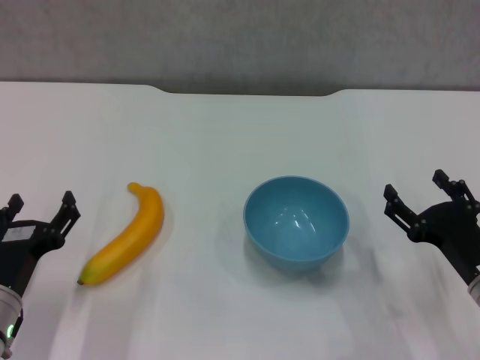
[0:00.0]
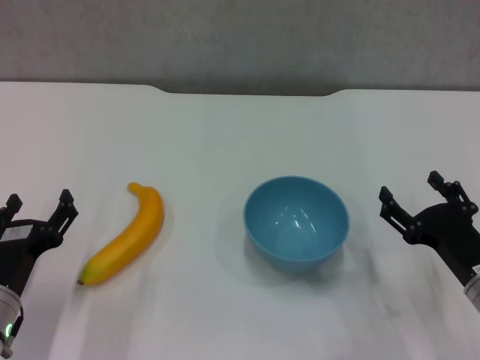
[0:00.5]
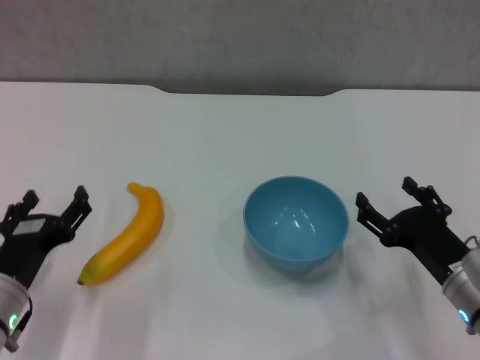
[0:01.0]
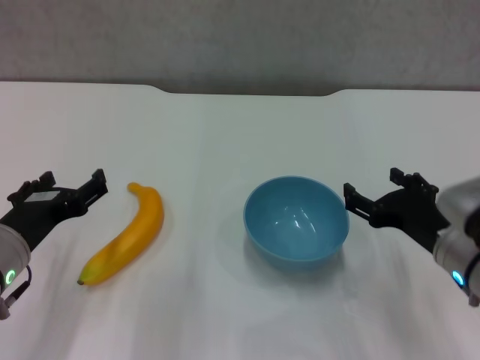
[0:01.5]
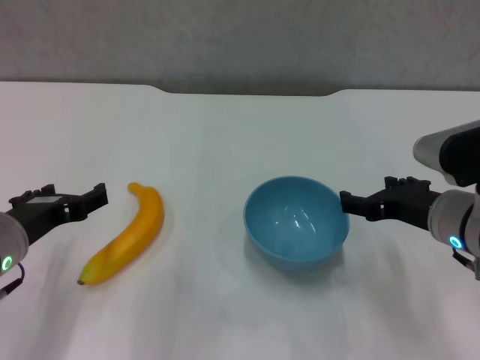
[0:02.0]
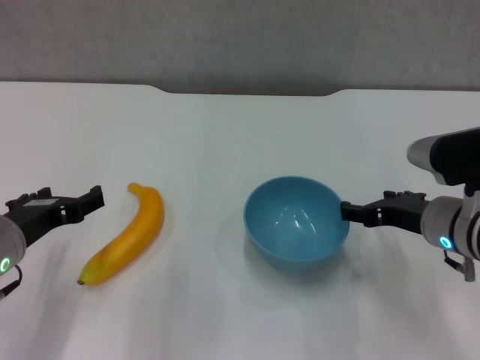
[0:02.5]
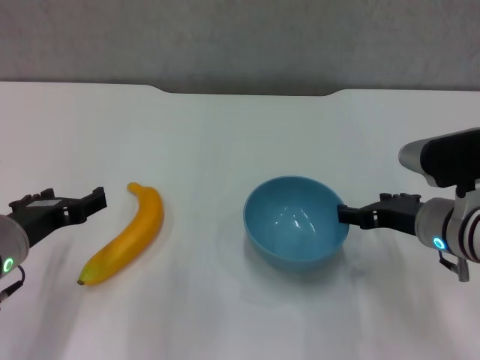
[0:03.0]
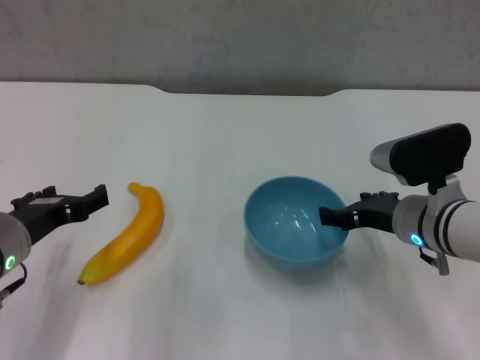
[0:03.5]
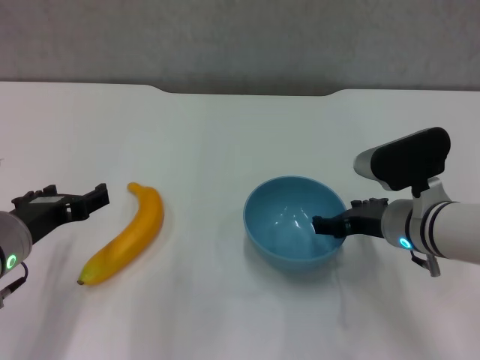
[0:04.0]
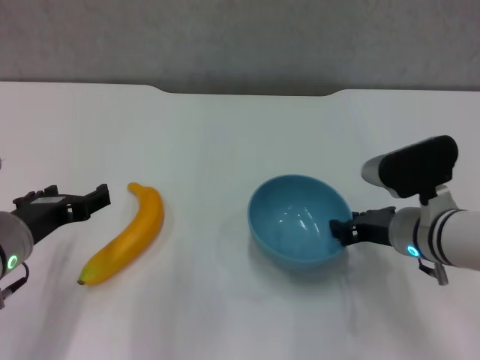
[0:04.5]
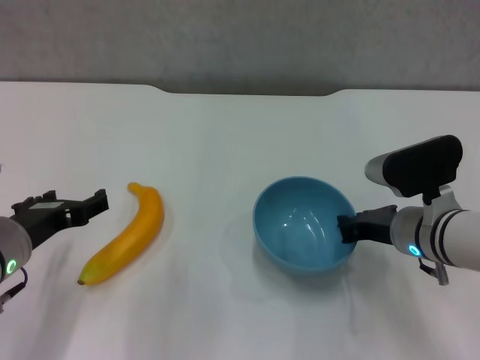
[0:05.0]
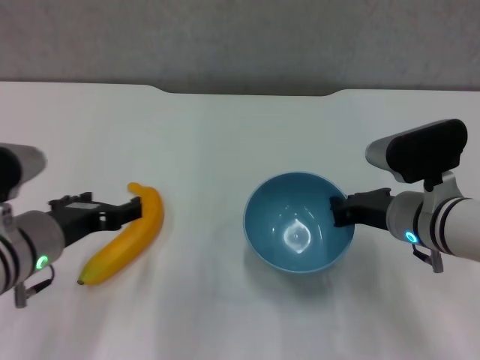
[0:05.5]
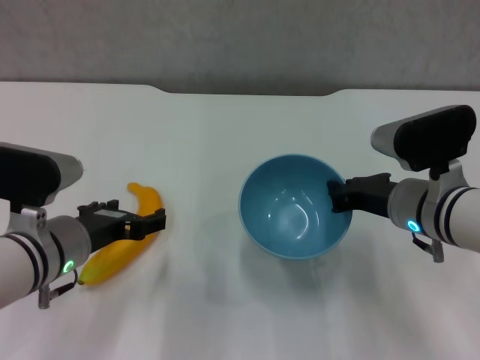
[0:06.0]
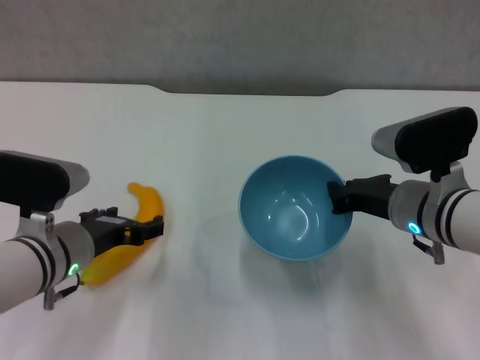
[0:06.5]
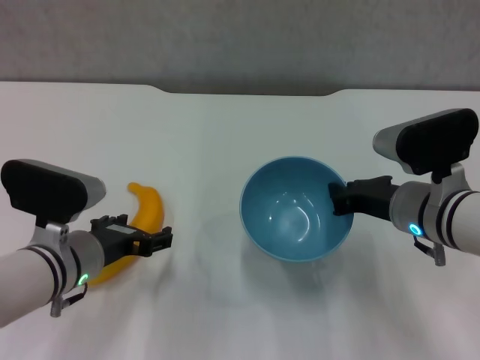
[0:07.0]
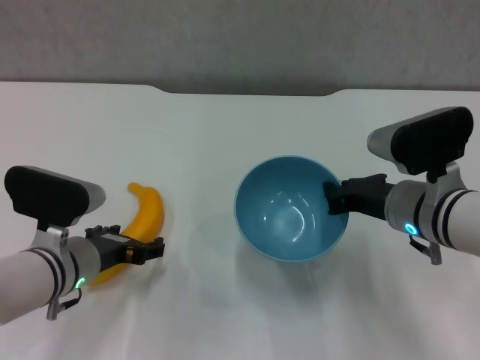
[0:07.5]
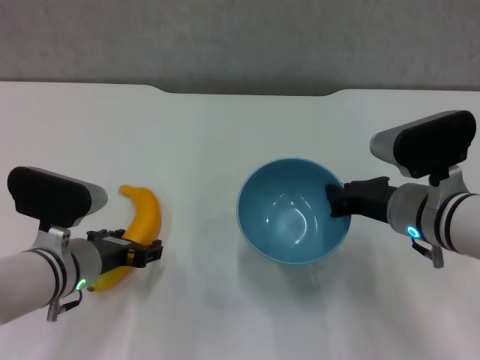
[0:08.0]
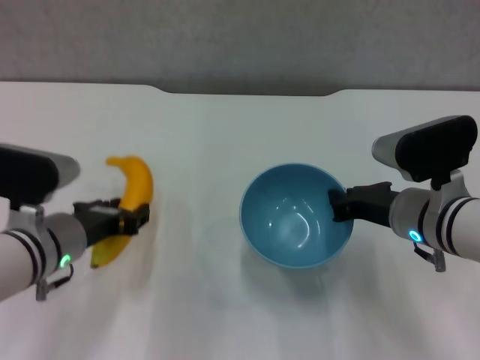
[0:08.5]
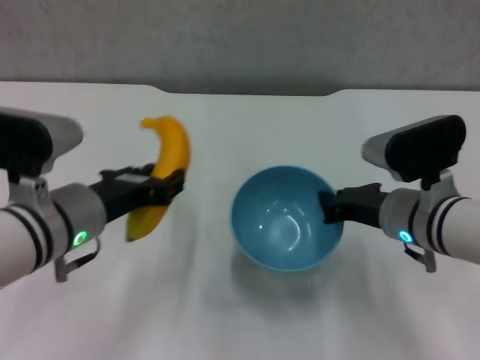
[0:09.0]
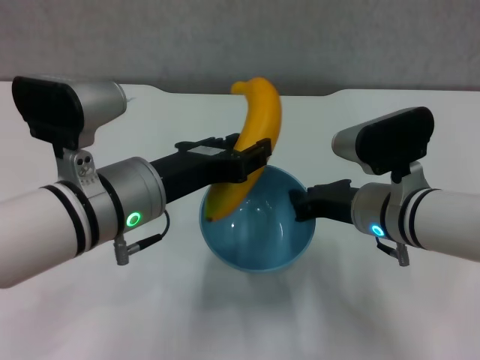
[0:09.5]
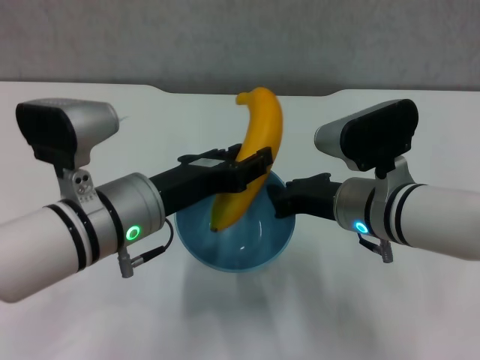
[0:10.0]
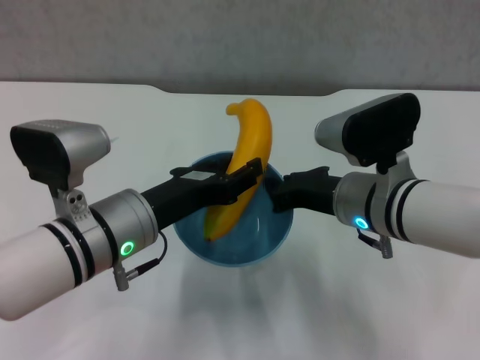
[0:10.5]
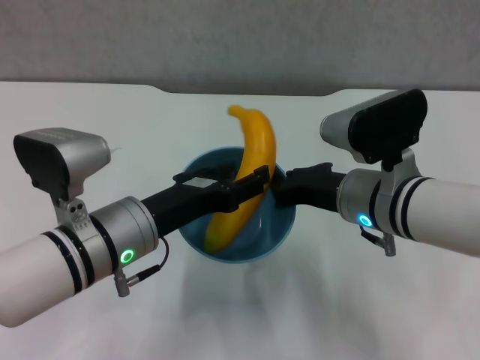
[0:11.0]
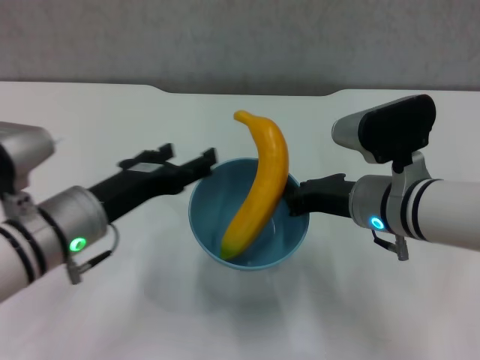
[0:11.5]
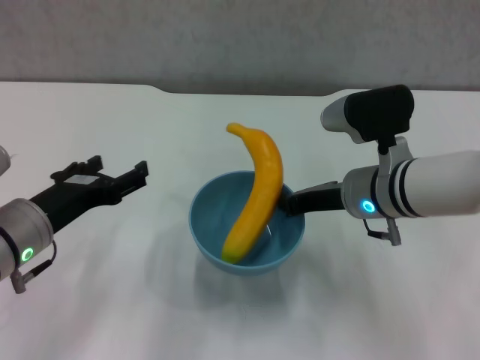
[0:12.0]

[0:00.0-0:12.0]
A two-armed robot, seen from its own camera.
Step, 0:00.0 to 0:05.0: Grasp the blue bowl with right gripper.
Step, 0:05.5 to 0:06.0: Lift the blue bowl with right gripper.
Step, 0:06.5 to 0:08.0: Grasp the banana with left gripper.
Step, 0:08.5 to 0:11.0: Place the banana in the blue bowl with left gripper.
0:00.0 to 0:02.0: The right gripper is displaced upward and forward by roughly 10 cm. Meanwhile the left gripper shifts some 10 cm upward.
0:02.0 to 0:04.0: The right gripper changes place by about 5 cm.
0:04.0 to 0:06.0: The right gripper closes up.
0:06.0 to 0:08.0: The left gripper shifts by roughly 5 cm.
0:08.0 to 0:10.0: The right gripper moves to the left, about 5 cm. The left gripper is displaced upward and to the right by roughly 10 cm, and closes.
0:10.0 to 0:12.0: The left gripper heads to the left, covering approximately 10 cm, and opens its fingers.

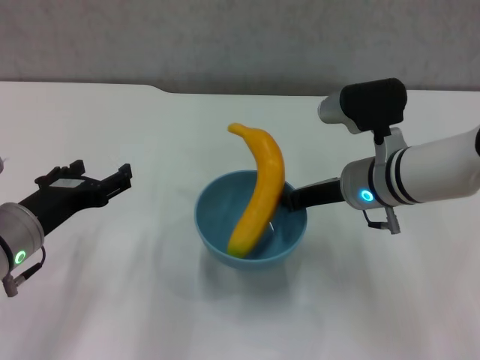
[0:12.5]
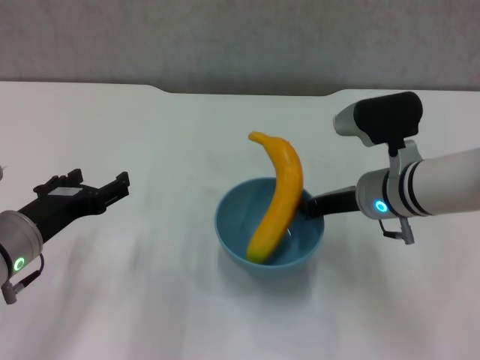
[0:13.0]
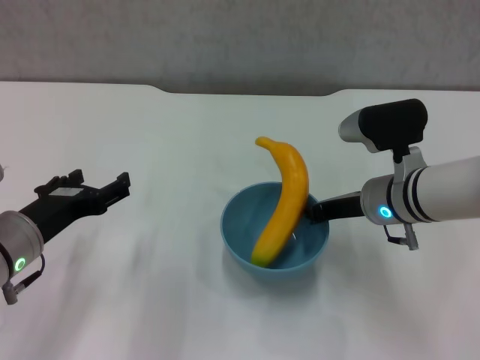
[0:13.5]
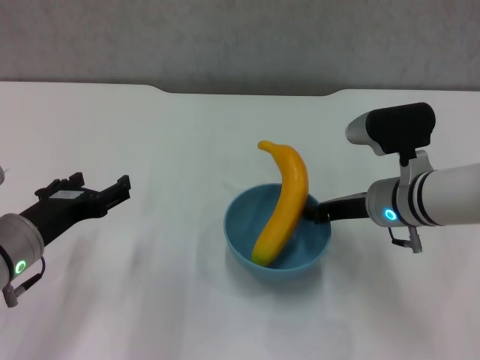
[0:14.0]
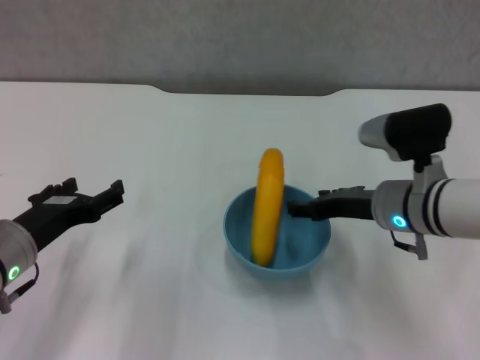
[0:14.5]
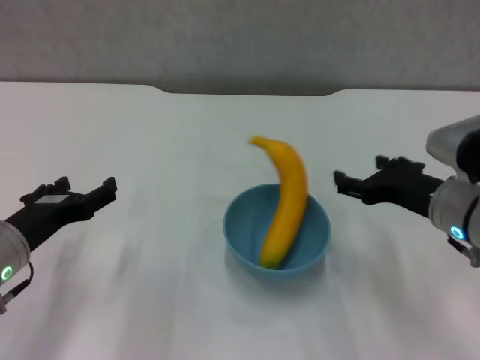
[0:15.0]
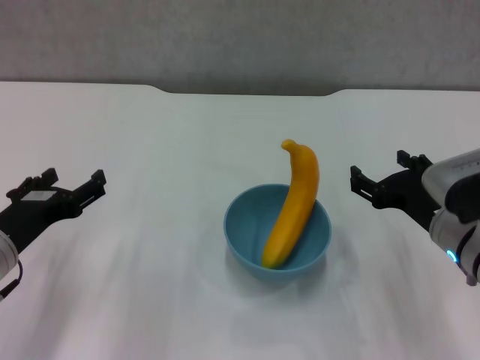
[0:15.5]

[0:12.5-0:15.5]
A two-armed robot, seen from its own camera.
Step, 0:12.5 to 0:14.5: Place the bowl on the table with right gripper.
0:14.0 to 0:15.5: The right gripper travels backward by some 10 cm, and opens its fingers.
